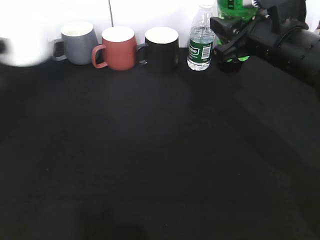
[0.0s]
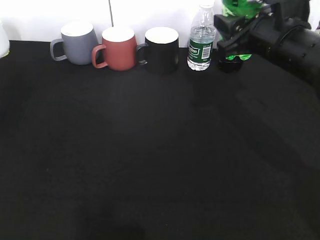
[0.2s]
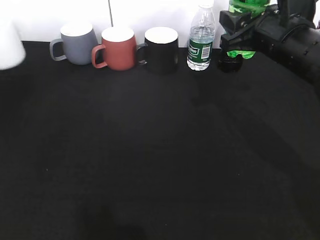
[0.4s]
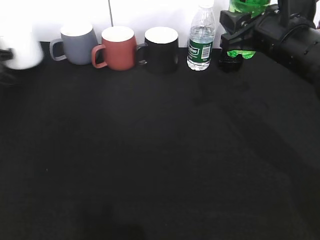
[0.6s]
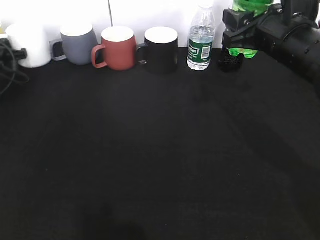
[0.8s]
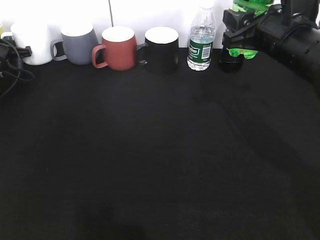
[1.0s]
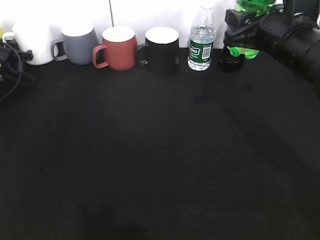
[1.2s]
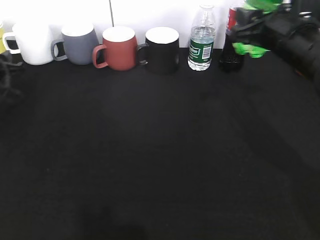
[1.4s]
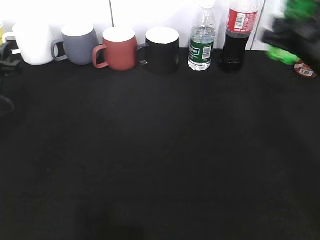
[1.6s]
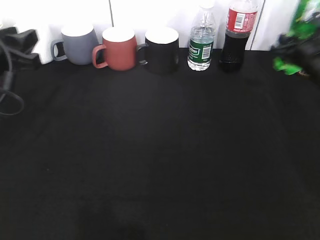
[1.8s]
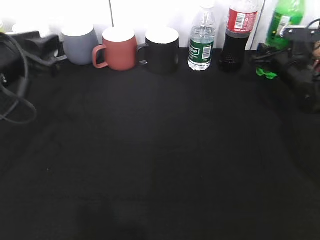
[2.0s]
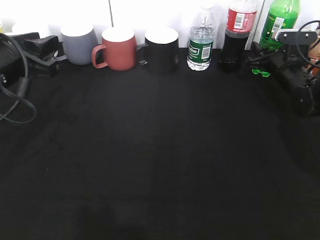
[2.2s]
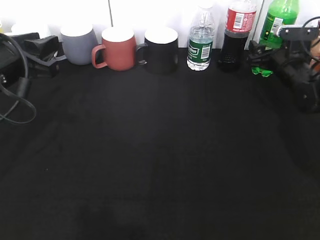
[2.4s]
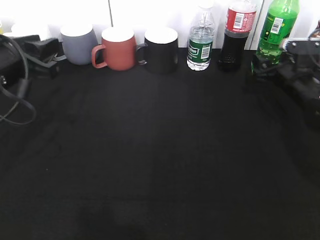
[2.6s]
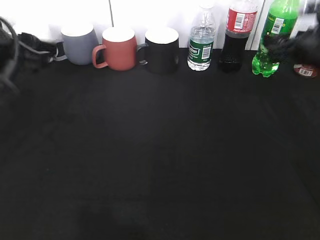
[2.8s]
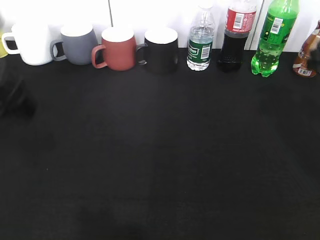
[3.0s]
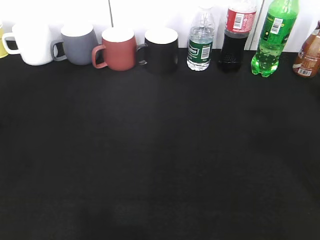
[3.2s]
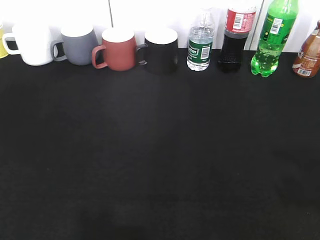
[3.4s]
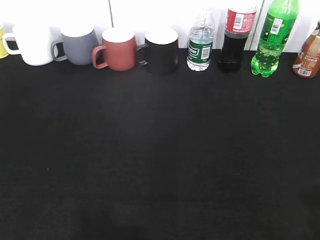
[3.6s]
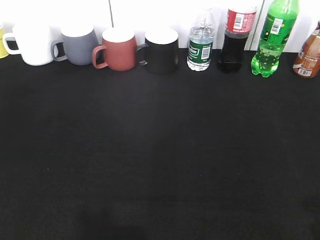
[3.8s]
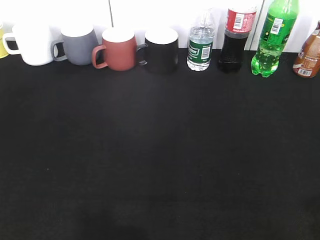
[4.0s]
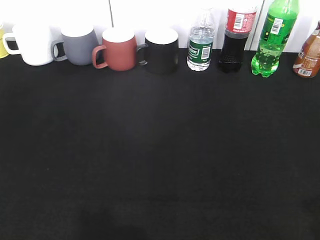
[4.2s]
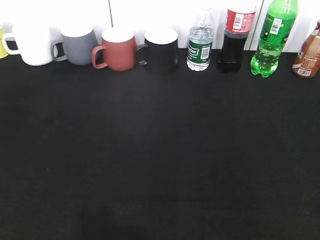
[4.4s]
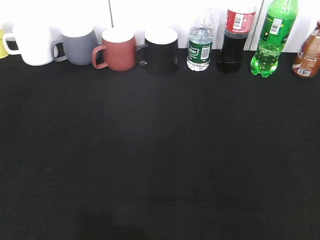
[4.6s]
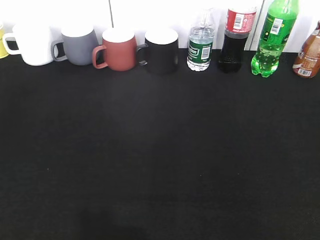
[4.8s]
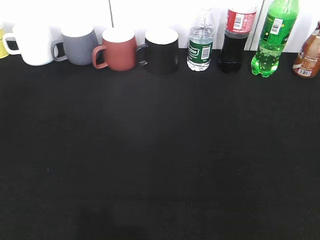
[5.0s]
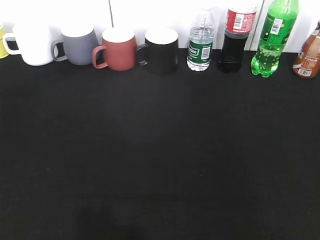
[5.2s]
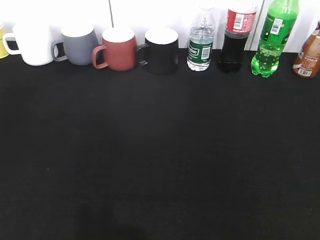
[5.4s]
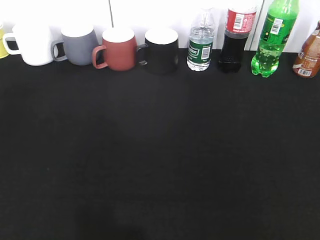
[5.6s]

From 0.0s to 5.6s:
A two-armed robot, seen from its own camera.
Step, from 0.0s to 2.6s: Place the sprite bottle on the table with right gripper.
From 0.0s to 1.4s: The left gripper shifts approximately 15 cm downward and forward, and opens.
From 1.4s to 2.8s: The left gripper goes roughly 25 cm upward, backward and to the right; the right gripper heads to the right, covering roughly 10 cm, travels downward and back again, about 15 cm each way, and opens up.
From 2.8s to 4.2s: Both grippers travel together backward, about 30 cm.

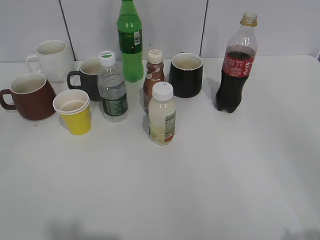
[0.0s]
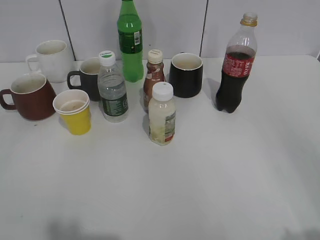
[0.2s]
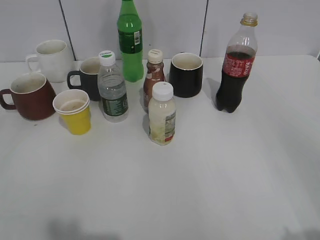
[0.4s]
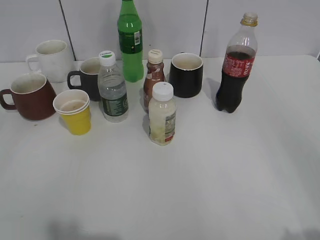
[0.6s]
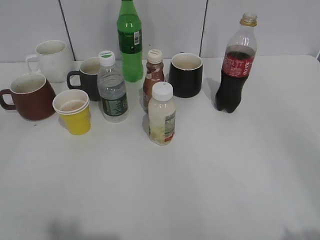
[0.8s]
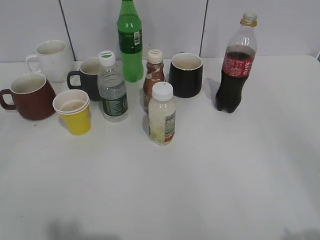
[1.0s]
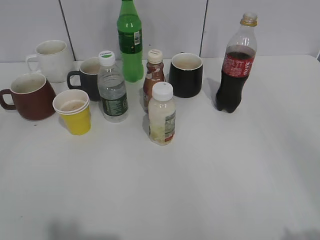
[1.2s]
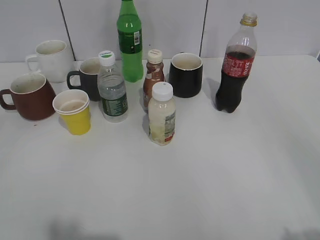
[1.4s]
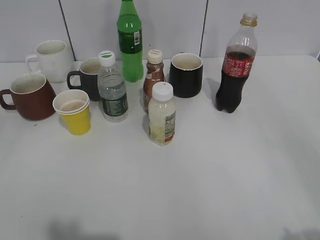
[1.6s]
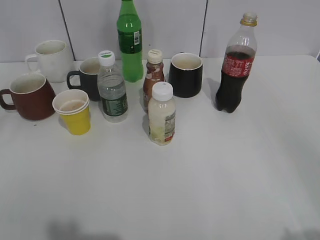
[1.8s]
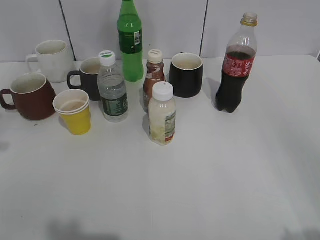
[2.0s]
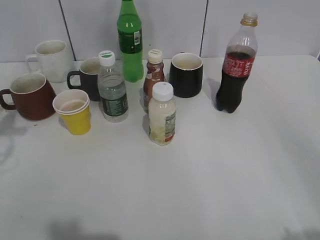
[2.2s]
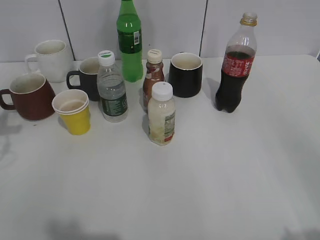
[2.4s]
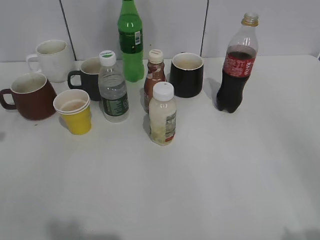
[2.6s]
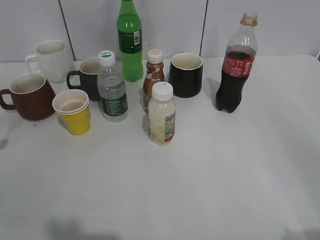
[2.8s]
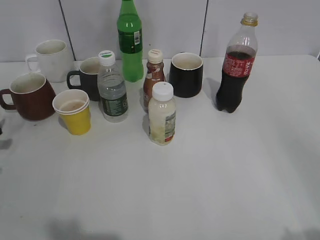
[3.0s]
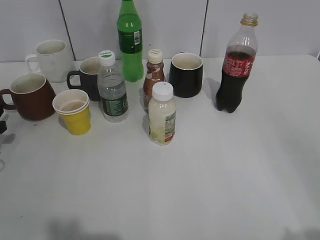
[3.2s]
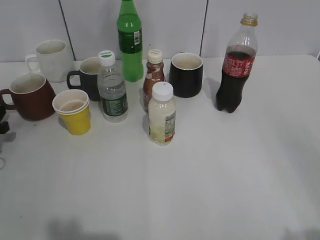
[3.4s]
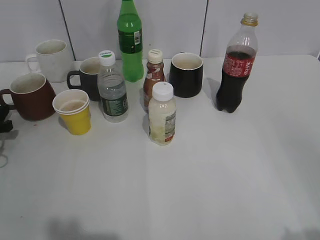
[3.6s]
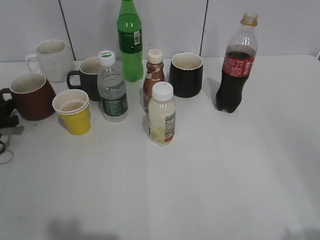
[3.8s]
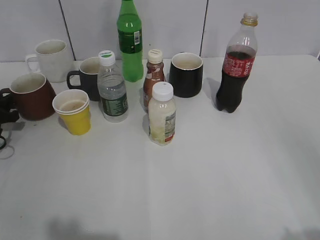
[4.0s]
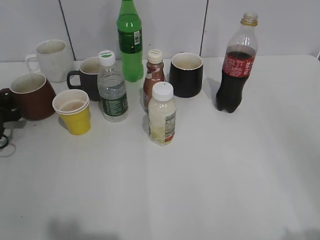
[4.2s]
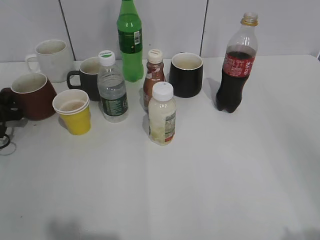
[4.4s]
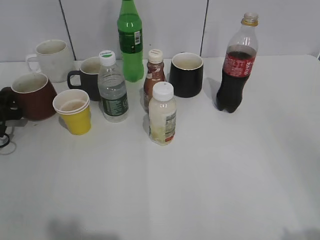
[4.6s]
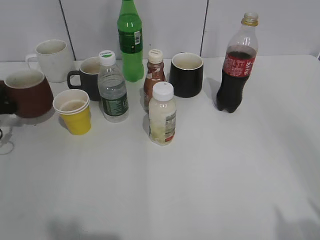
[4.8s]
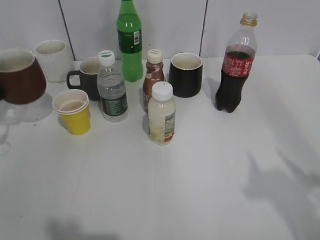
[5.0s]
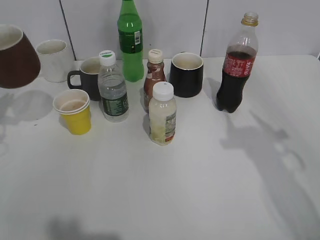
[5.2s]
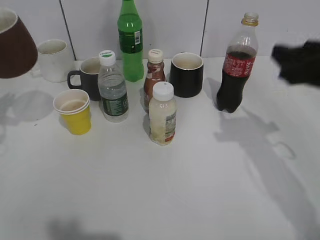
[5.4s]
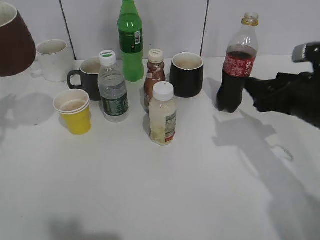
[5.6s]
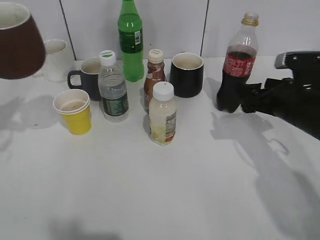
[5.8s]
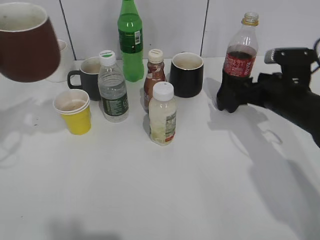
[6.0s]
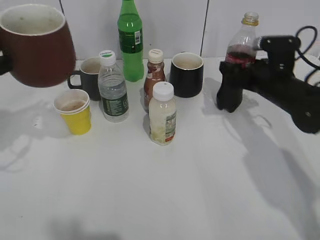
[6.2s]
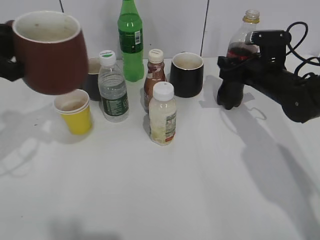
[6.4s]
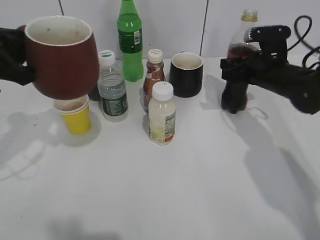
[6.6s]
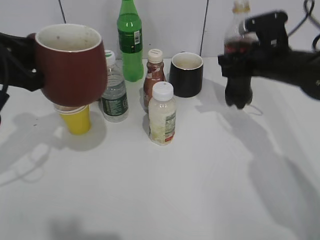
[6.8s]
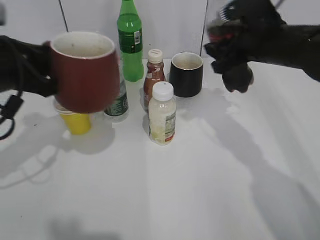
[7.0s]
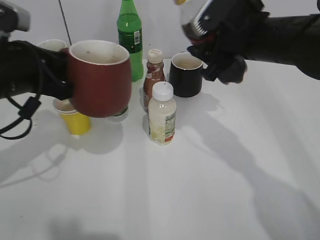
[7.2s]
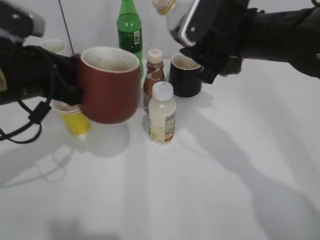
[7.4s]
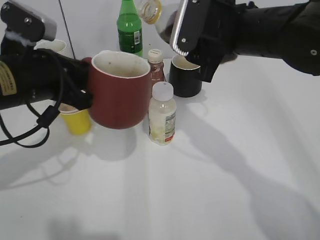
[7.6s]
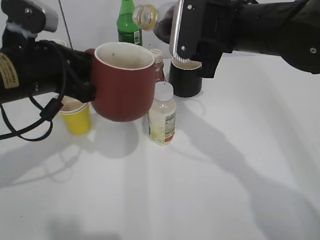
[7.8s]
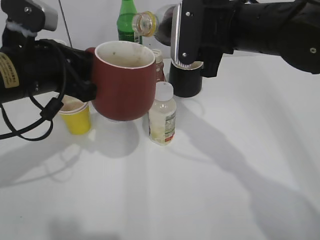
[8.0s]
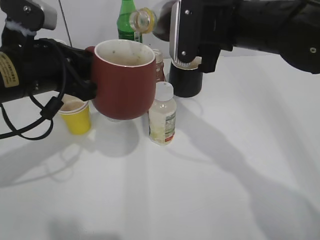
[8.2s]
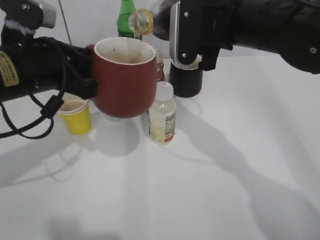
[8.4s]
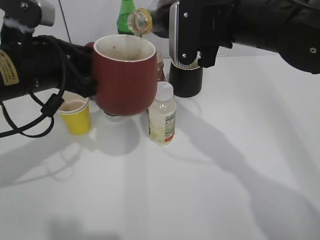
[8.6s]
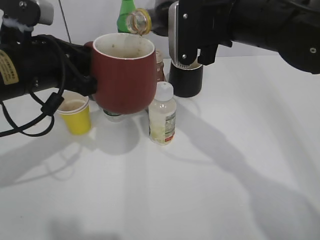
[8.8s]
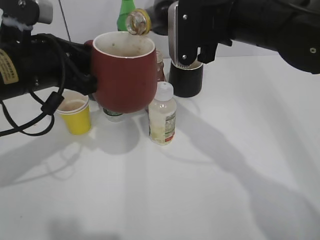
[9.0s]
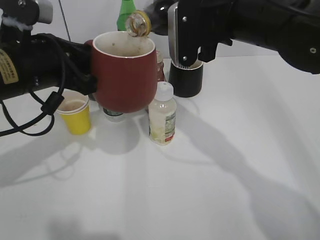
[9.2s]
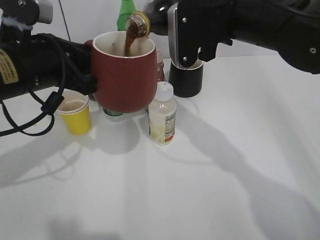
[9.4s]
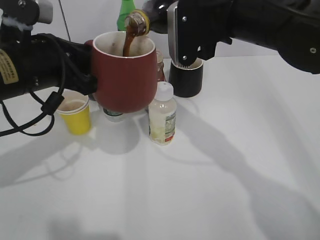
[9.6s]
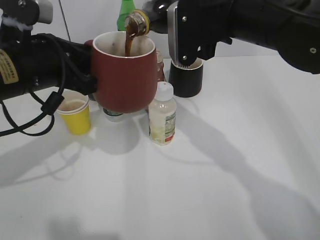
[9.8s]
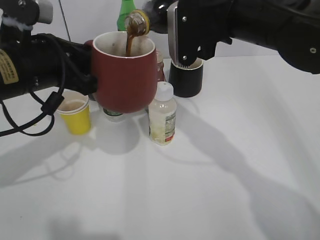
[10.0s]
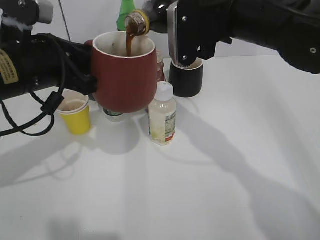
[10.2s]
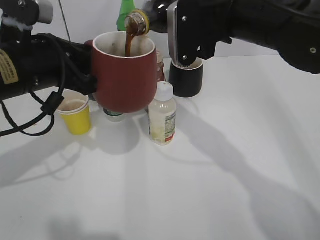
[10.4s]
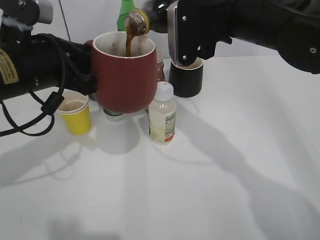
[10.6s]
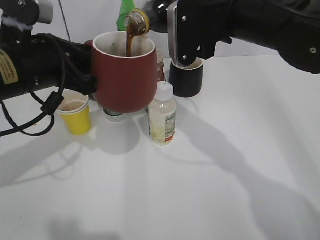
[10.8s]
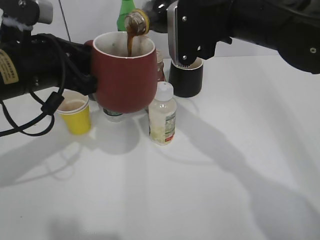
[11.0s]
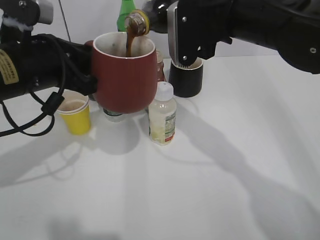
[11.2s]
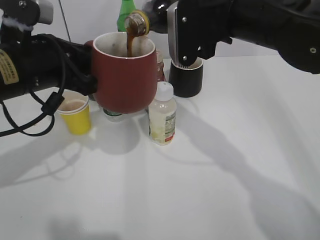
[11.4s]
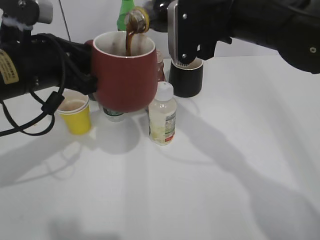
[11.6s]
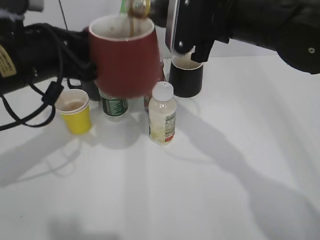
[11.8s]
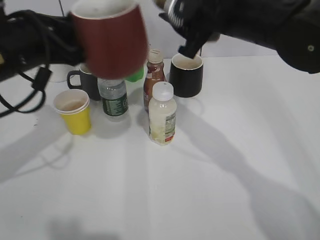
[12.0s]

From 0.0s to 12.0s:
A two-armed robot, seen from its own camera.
Step, from 1.6s to 4.4s: Grasp the red cup with left gripper.
Step, from 4.8s to 6.4s: Lift the red cup with left gripper.
From 1.6s to 3.0s: The left gripper is displaced forward and downward by about 35 cm.
From 3.0s to 4.4s: The left gripper heads forward, covering some 10 cm, and closes its fingers.
From 4.4s to 6.0s: The left gripper heads upward and backward, covering some 25 cm. Meanwhile the right gripper goes some 35 cm forward and downward, and opens its fingers.
From 6.0s to 7.6s: The left gripper heads to the right, covering roughly 10 cm; the right gripper travels upward and to the left by roughly 20 cm, and closes its fingers.
From 9.0s to 10.4s: Both grippers stay about where they are.

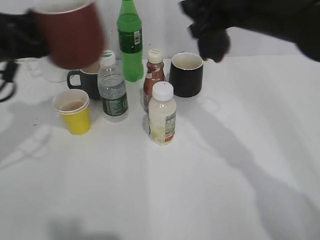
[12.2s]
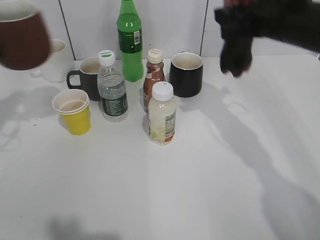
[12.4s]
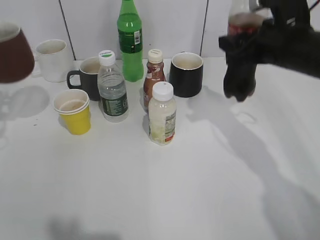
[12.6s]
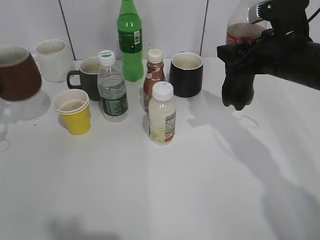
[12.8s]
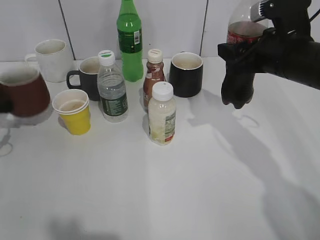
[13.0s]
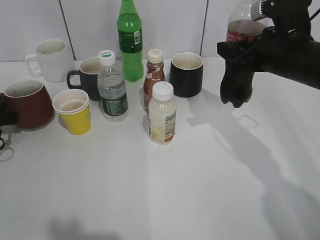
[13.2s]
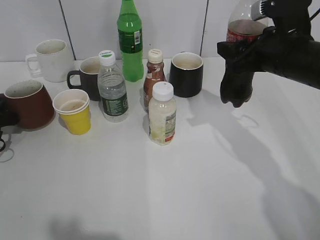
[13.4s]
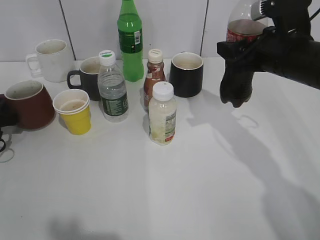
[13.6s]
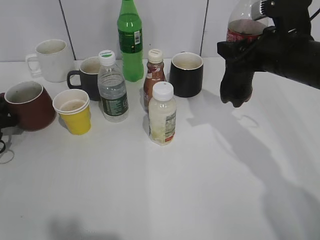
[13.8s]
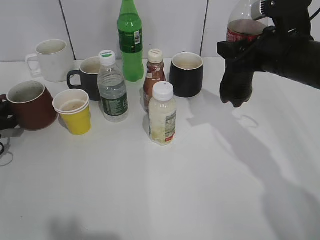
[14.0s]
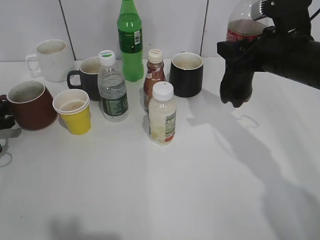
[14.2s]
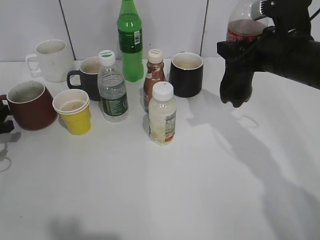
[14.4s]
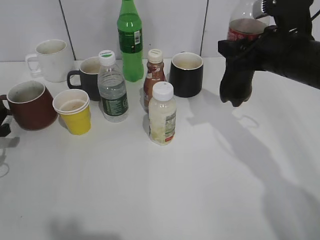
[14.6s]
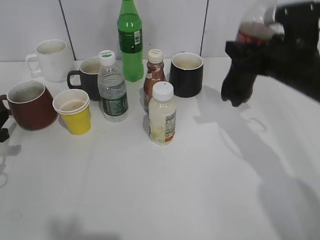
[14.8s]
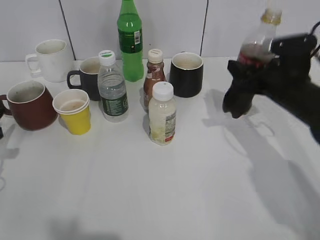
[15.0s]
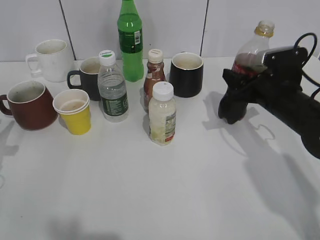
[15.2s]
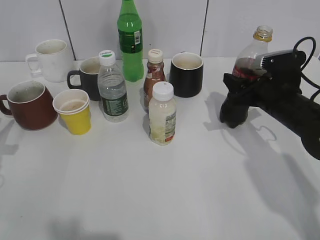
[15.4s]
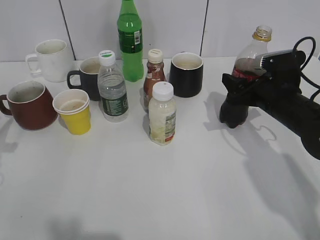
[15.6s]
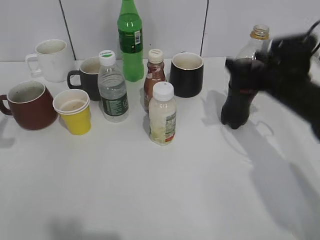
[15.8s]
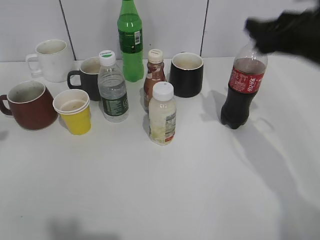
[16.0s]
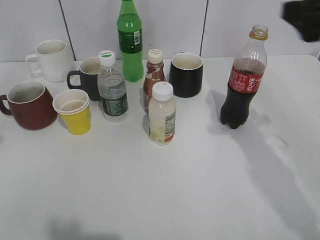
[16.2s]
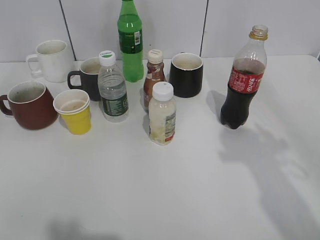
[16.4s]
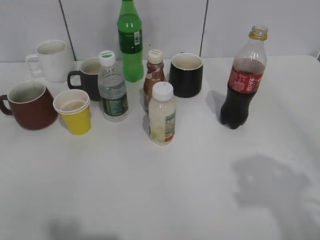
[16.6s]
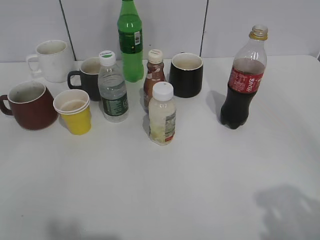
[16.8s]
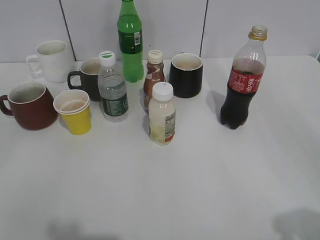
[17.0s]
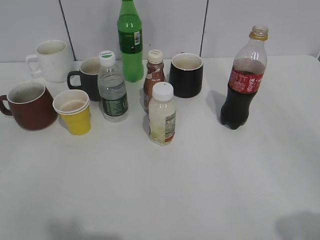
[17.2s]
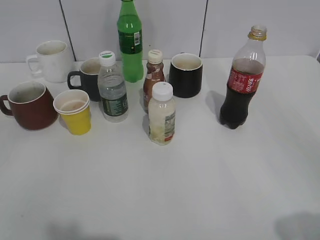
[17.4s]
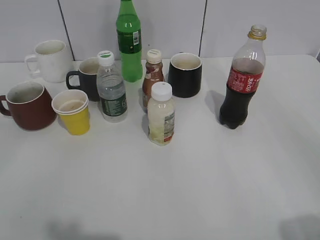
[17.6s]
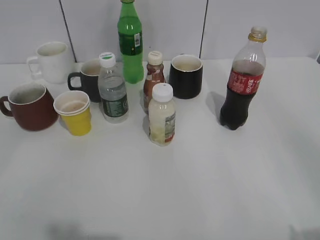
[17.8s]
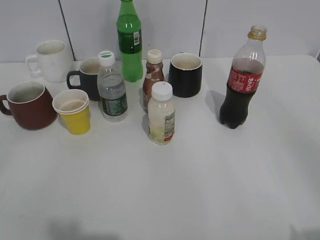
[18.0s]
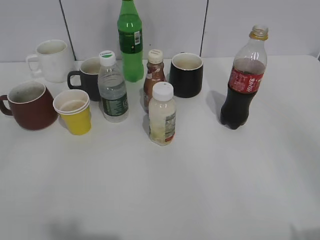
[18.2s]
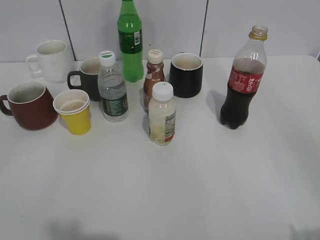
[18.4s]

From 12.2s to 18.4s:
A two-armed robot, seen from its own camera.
Step, from 12.2s to 15.8s: Place the cola bottle on the table with right gripper.
From 12.2s to 13.8s: The right gripper travels to the right and downward by roughly 10 cm. Meanwhile the left gripper is displaced downward and to the left by about 25 cm, and opens its fingers.
From 13.8s to 15.4s: The left gripper travels backward and upward by approximately 10 cm, and opens up. Meanwhile the right gripper heads downward, covering about 10 cm.
From 15.4s to 16.8s: The right gripper moves backward and upward, approximately 35 cm, and opens its fingers.
From 16.8s to 18.4s: The right gripper travels backward by approximately 5 cm.
